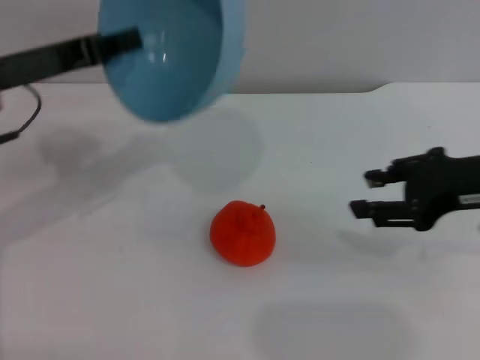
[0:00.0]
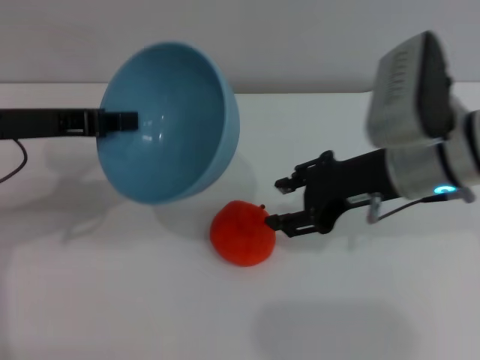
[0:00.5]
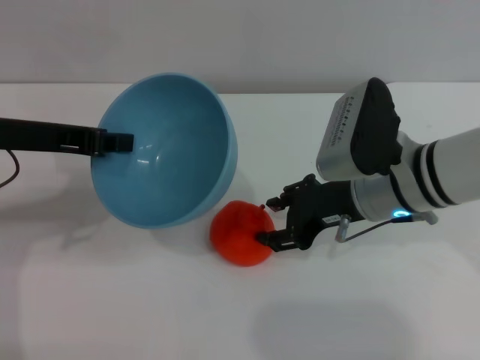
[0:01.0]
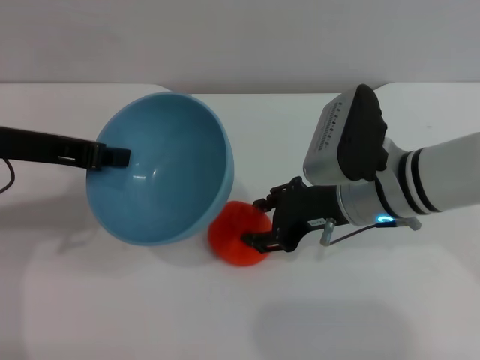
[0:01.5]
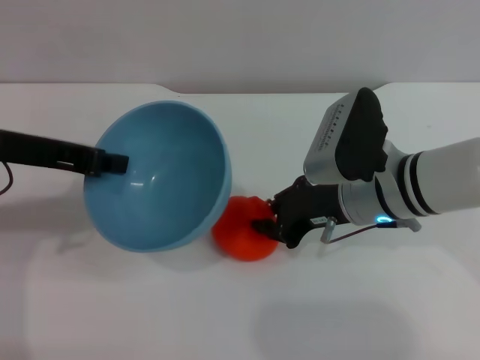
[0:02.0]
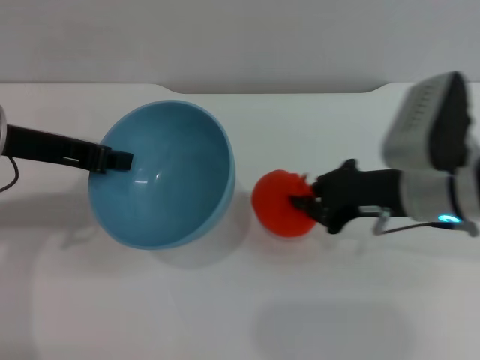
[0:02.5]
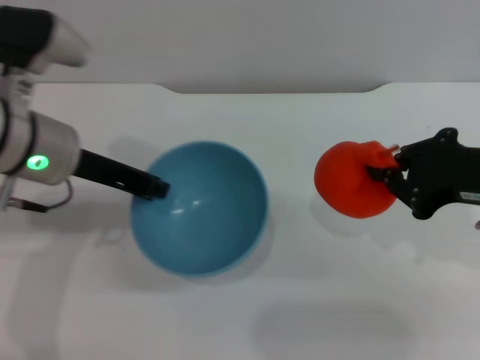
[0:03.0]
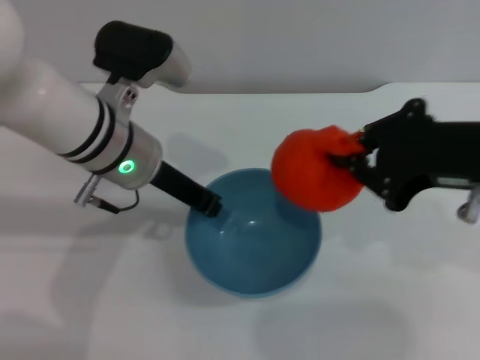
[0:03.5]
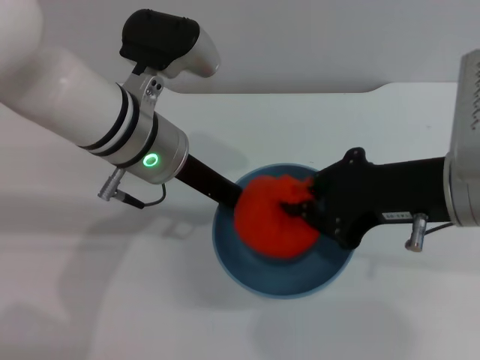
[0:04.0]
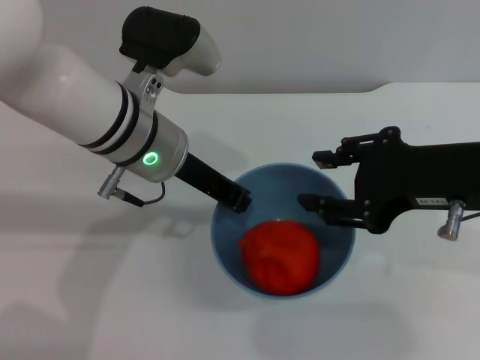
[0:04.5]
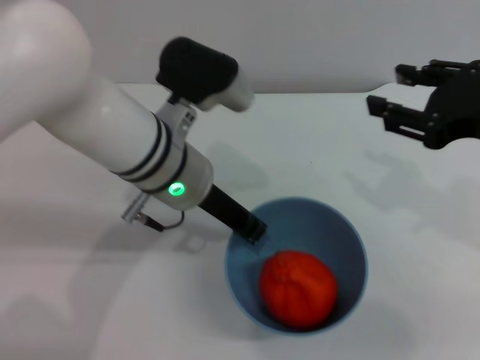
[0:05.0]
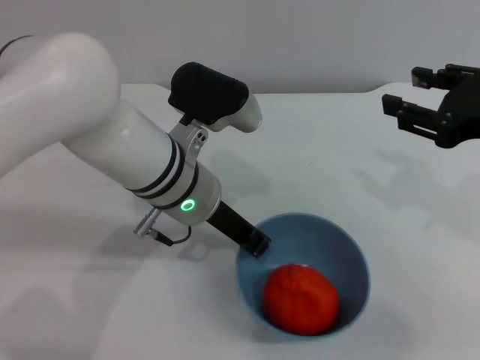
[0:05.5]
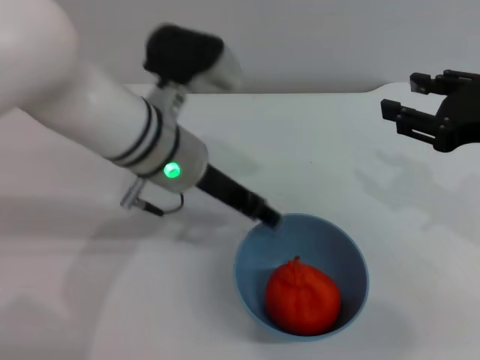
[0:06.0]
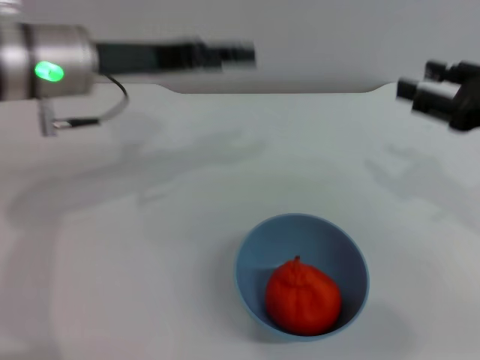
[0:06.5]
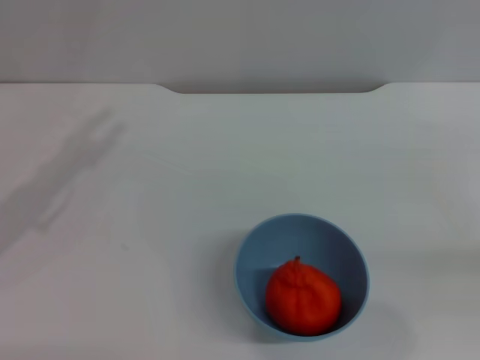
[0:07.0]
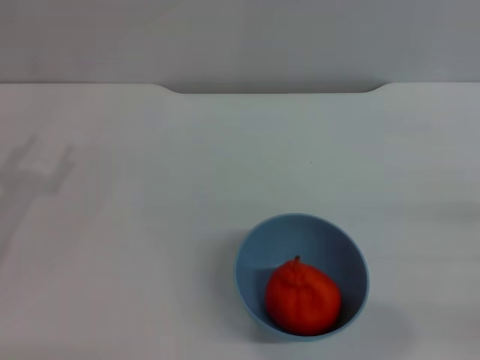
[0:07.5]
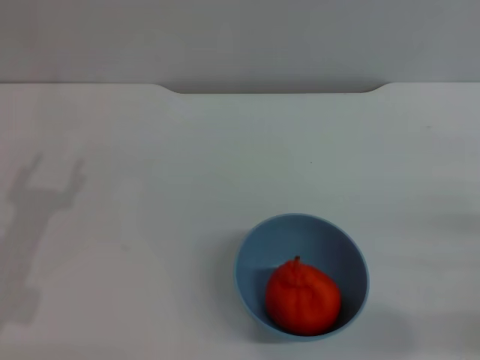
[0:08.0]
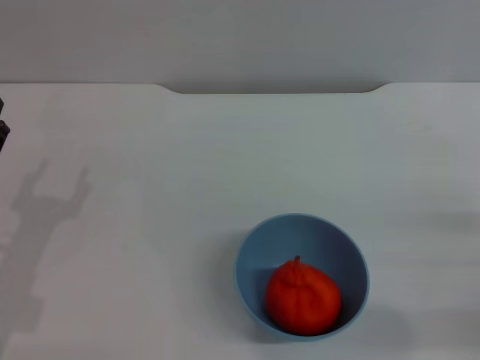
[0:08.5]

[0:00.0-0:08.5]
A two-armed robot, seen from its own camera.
Task of the whole recording: put the orange into the blue bowl and pour it out repeatedly.
Step, 0:00.0 to 0:02.5: Pick up the orange with the right gripper.
Step, 0:03.0 to 0:04.0: Place the orange into the bowl.
Step, 0:04.5 to 0:06.0: Place the bowl on the table.
0:00.0 to 0:02.0: The right gripper travels to the left and downward by some 15 cm.
0:02.0 to 0:04.0: The left gripper goes about 15 cm to the right, while the right gripper shifts some 10 cm upward and backward, and closes up.
0:04.0 to 0:06.5: The right gripper is displaced to the right by approximately 10 cm, and opens up. Meanwhile the left gripper heads to the left, covering about 10 cm, and opens up.
0:06.5 to 0:08.5: The right gripper moves downward, to the right and backward, about 20 cm. Meanwhile the left gripper moves downward, backward and to the left, about 25 cm.
